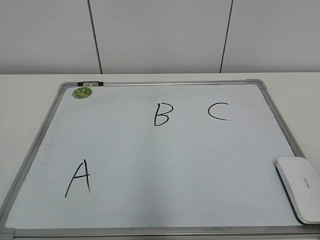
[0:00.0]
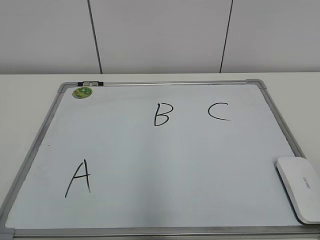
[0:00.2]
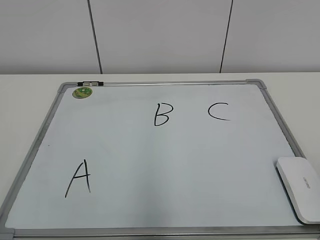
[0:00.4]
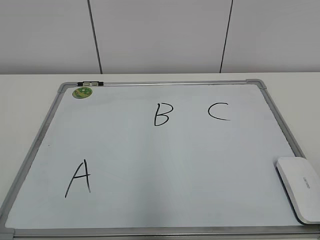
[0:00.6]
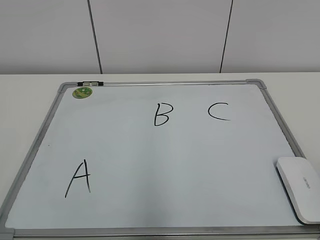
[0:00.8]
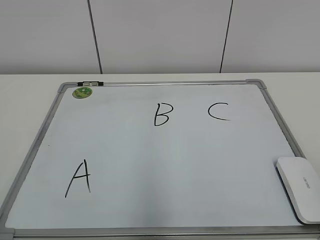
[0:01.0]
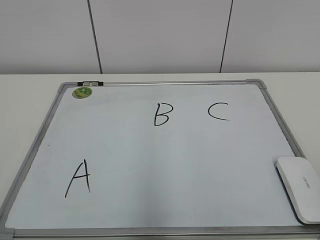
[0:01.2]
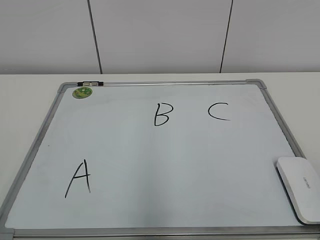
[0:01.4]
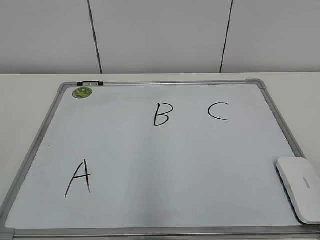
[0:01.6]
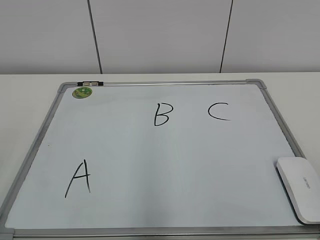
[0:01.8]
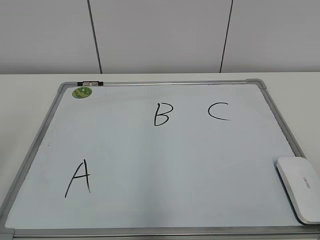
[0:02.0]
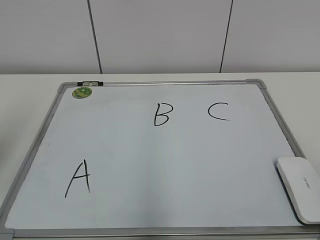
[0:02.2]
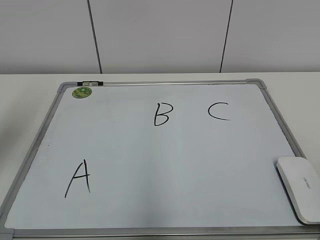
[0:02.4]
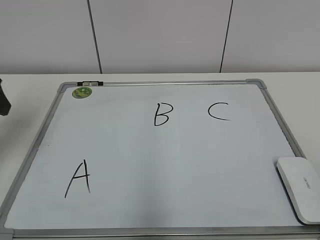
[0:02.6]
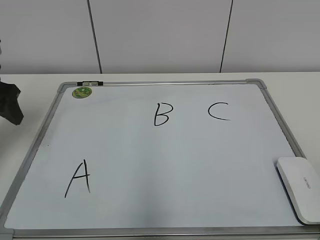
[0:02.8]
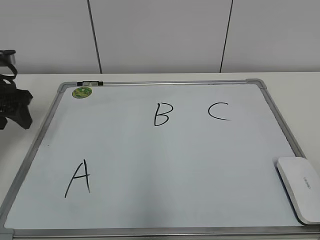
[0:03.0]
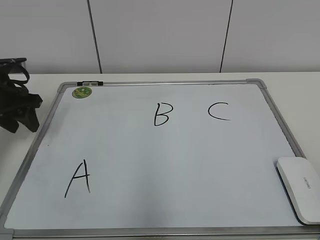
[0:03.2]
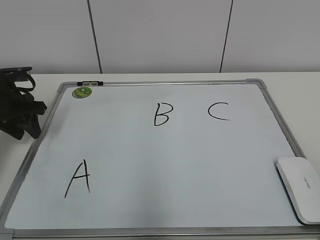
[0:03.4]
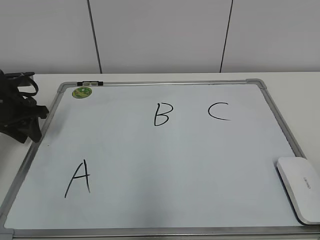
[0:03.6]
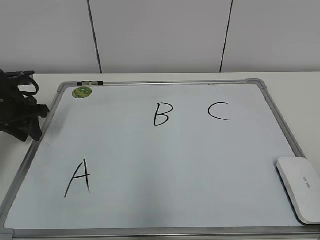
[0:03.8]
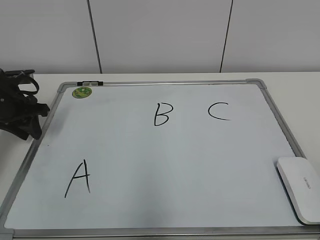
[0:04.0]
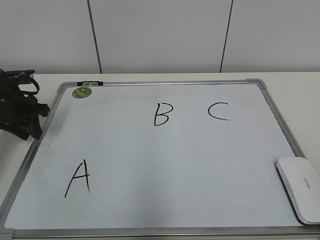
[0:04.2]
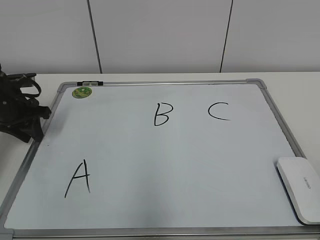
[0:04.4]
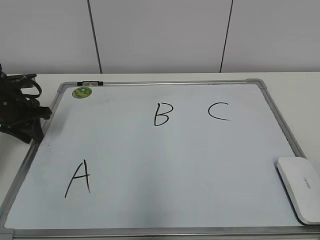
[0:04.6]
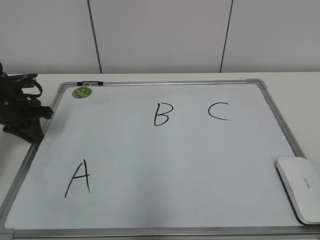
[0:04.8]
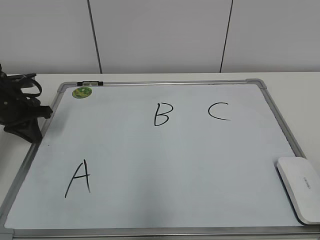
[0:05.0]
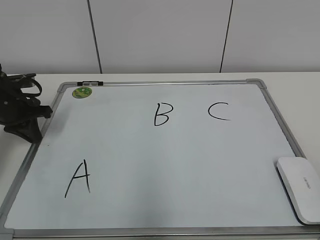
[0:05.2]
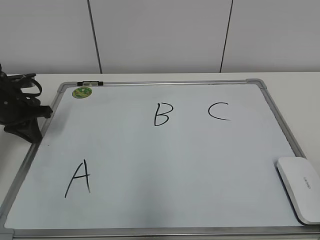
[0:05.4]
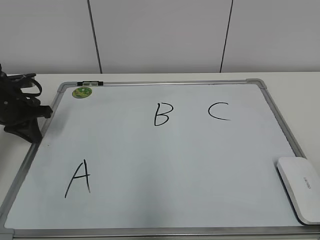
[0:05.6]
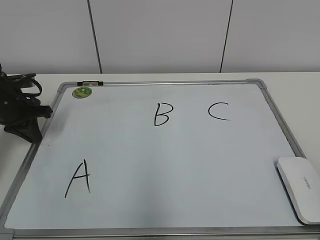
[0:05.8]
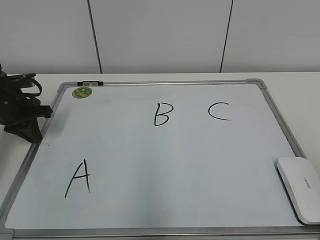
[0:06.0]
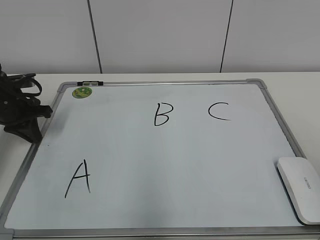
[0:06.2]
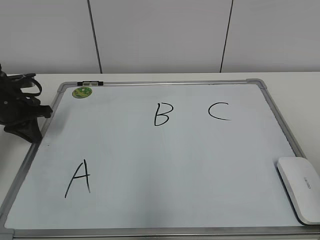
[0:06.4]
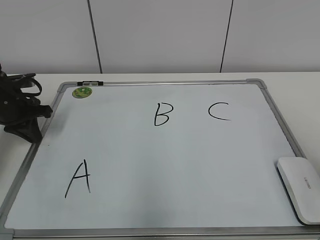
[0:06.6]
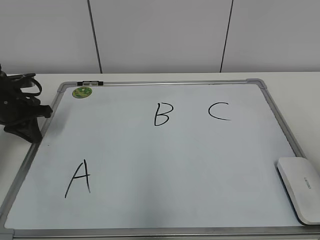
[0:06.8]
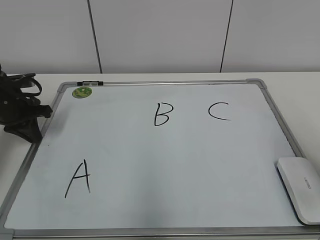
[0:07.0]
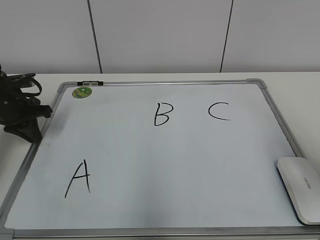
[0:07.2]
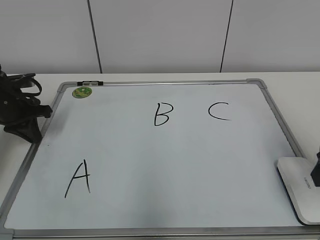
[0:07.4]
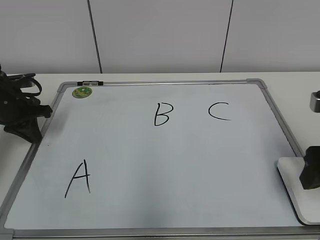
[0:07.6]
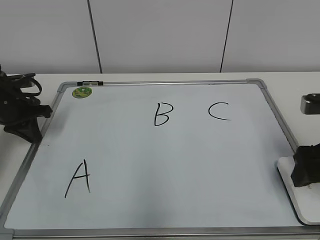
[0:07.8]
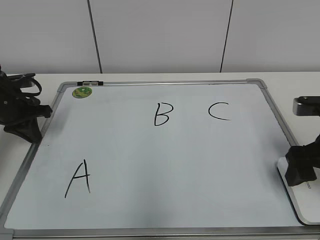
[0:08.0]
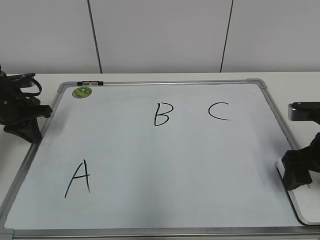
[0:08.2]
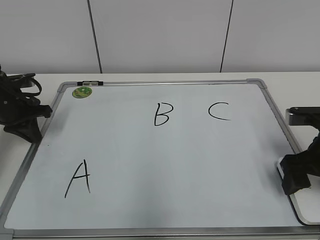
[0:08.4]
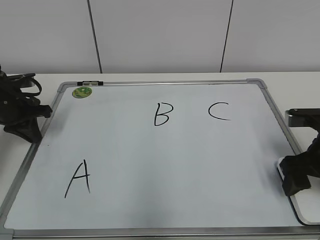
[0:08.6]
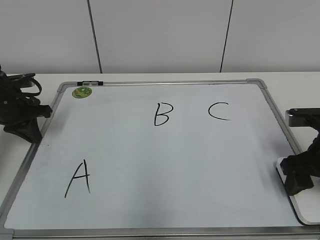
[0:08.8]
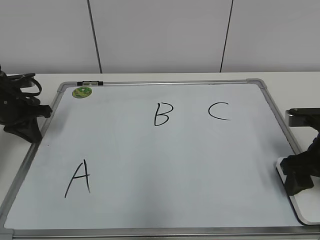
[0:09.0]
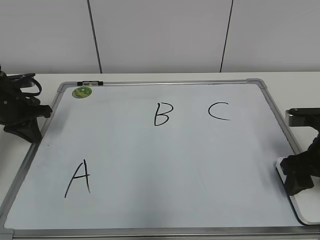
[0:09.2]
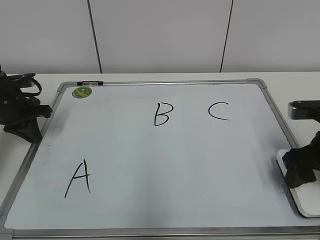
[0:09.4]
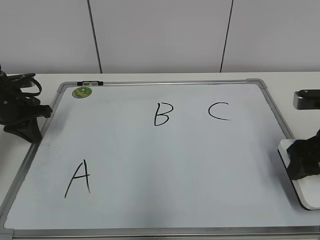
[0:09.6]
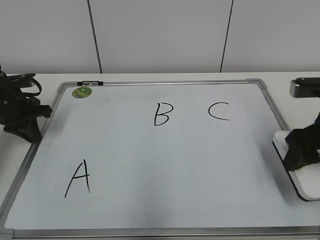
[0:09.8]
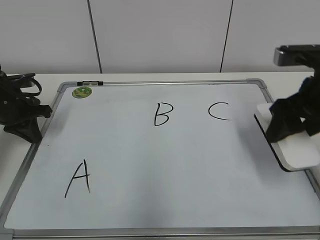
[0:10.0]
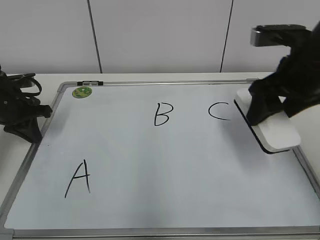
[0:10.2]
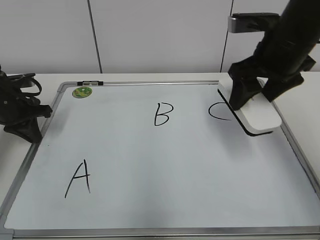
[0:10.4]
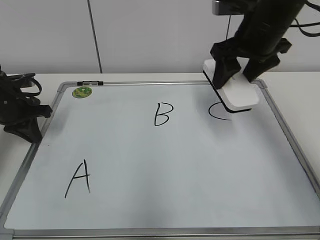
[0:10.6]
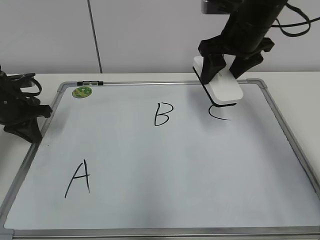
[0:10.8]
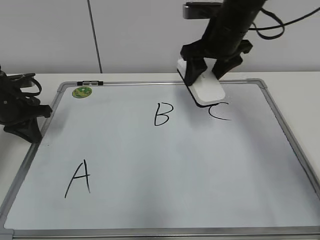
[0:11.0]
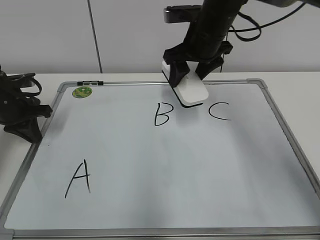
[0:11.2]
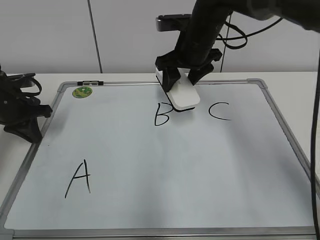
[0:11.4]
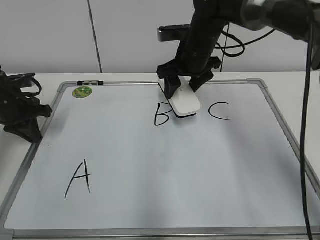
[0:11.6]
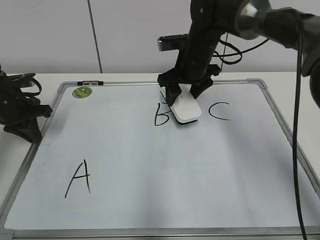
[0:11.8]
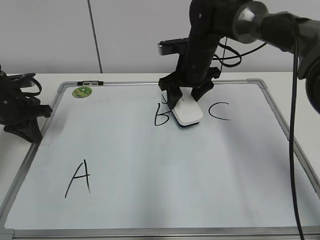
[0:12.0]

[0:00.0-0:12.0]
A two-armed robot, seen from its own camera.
Task of the whole recording: pick up the eraser on the blackboard and erase the letter "B".
Step, 0:00.0 to 0:04.8: Hold the drawing board steady with your left hand.
Step, 0:05.0 to 0:09.0: Grab the eraser with your right hand.
0:01.6 to 0:03.0: The left gripper is displaced forward by approximately 35 cm.
0:03.0 to 0:04.4: The left gripper moves downward, roughly 5 cm, and closes.
0:06.0 to 0:07.6: The right gripper travels forward and downward by about 25 cm, and opens up.
0:07.6 to 0:09.0: The right gripper shifts approximately 5 cm downward, and closes up.
0:09.0 to 0:10.4: The right gripper moves upward, to the left and forward, some 15 cm.
0:10.4 to 0:12.0: The right gripper shifts approximately 20 cm forward, to the left and downward.

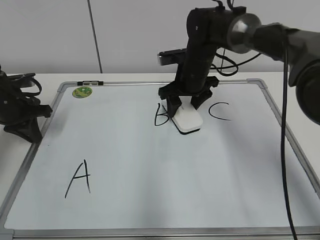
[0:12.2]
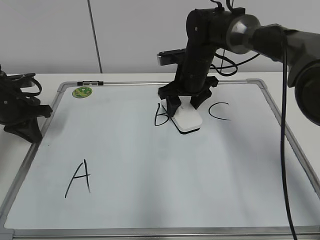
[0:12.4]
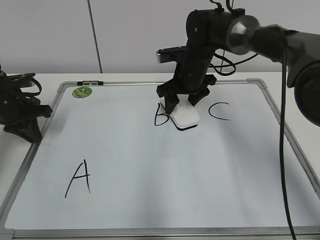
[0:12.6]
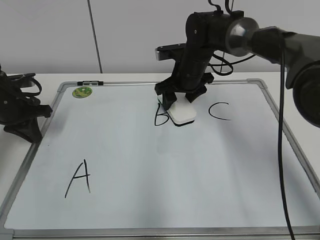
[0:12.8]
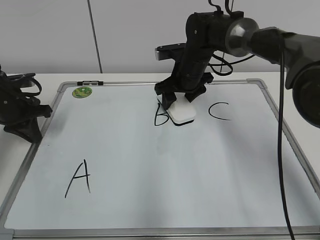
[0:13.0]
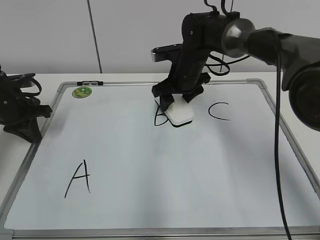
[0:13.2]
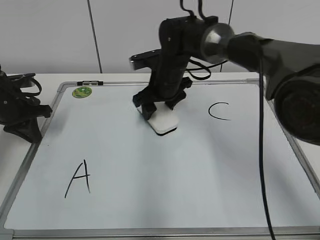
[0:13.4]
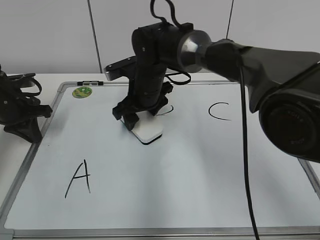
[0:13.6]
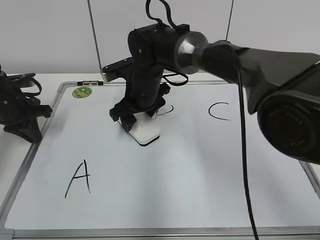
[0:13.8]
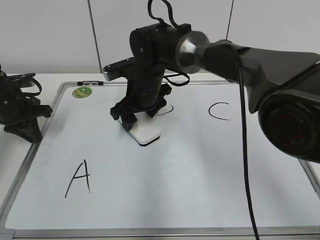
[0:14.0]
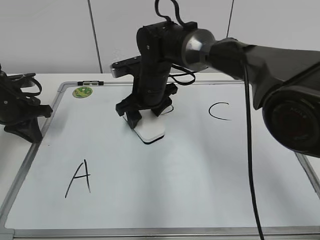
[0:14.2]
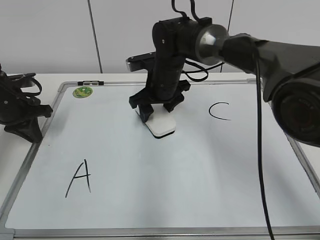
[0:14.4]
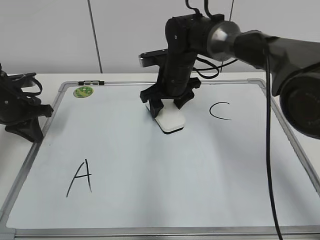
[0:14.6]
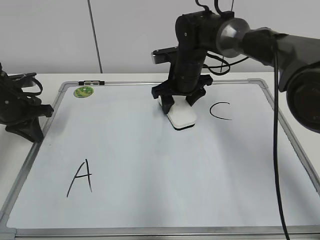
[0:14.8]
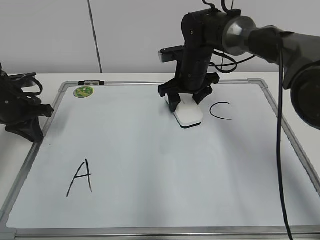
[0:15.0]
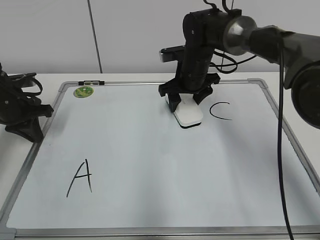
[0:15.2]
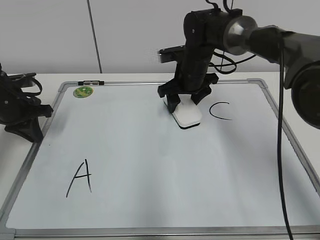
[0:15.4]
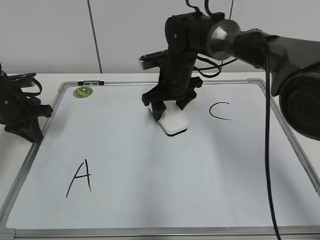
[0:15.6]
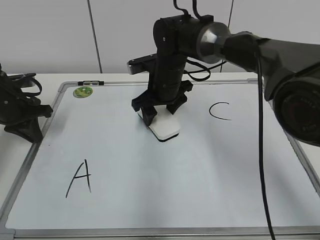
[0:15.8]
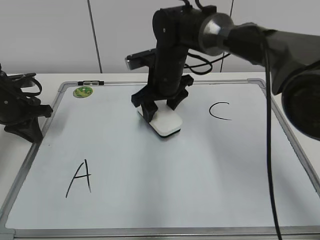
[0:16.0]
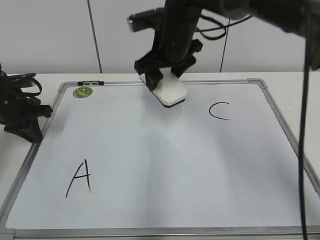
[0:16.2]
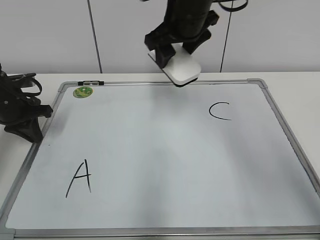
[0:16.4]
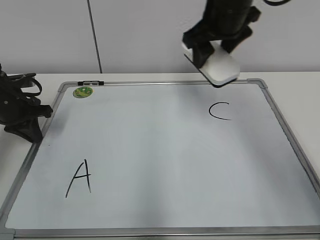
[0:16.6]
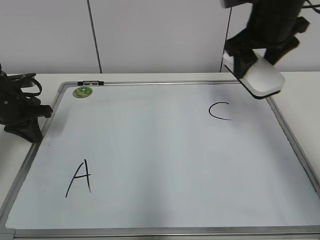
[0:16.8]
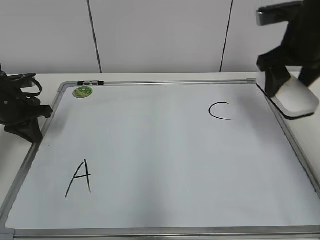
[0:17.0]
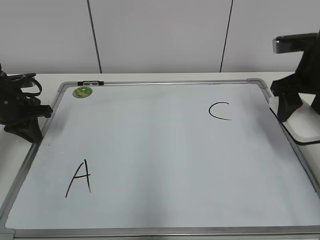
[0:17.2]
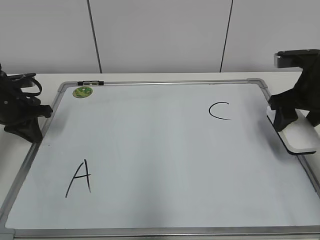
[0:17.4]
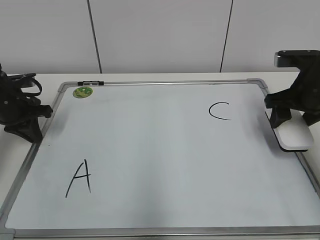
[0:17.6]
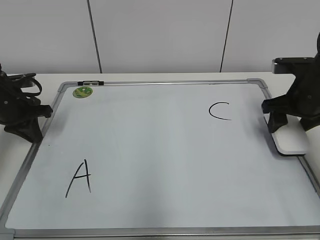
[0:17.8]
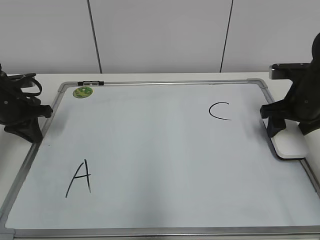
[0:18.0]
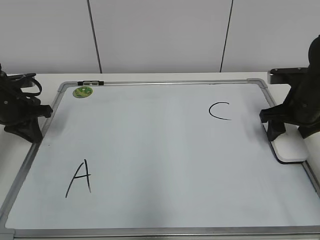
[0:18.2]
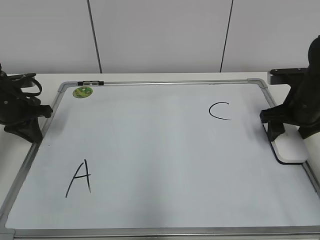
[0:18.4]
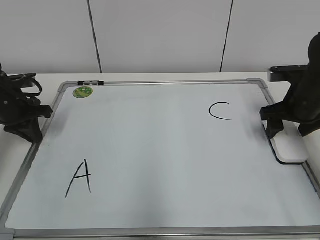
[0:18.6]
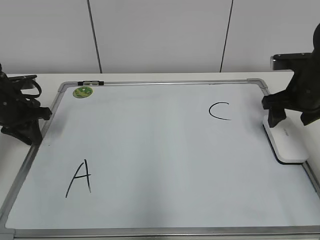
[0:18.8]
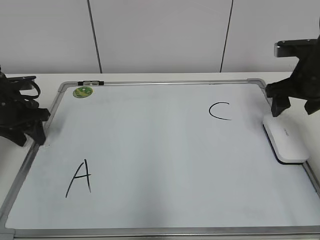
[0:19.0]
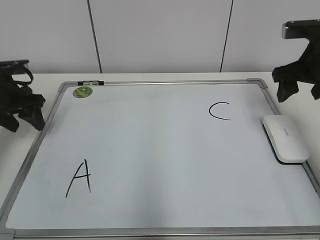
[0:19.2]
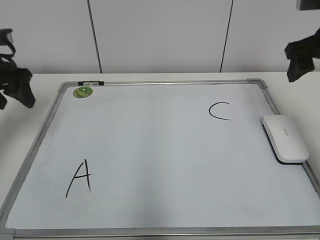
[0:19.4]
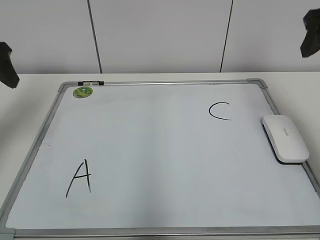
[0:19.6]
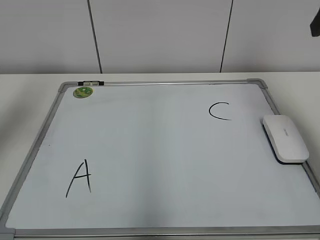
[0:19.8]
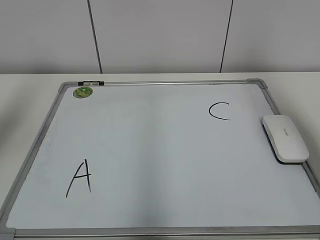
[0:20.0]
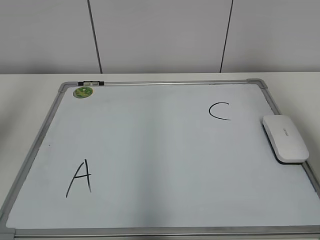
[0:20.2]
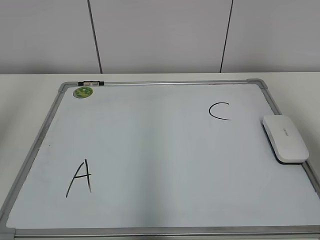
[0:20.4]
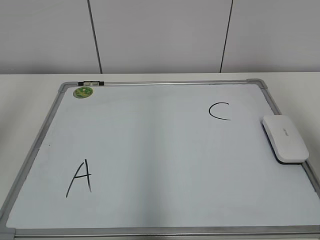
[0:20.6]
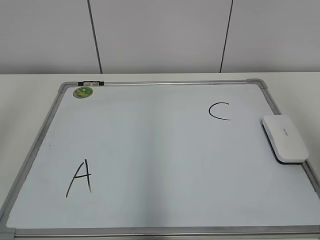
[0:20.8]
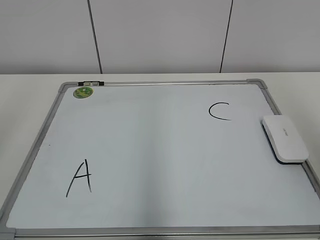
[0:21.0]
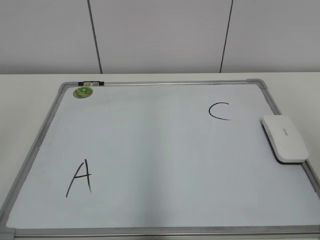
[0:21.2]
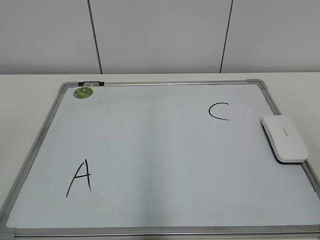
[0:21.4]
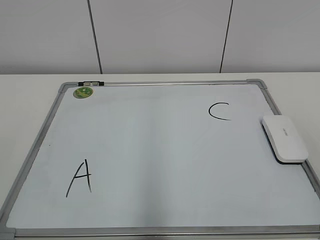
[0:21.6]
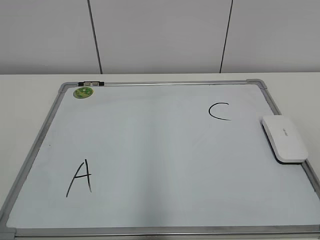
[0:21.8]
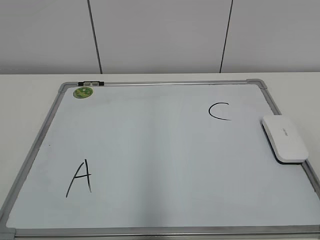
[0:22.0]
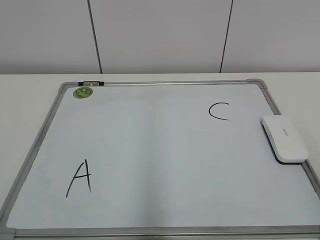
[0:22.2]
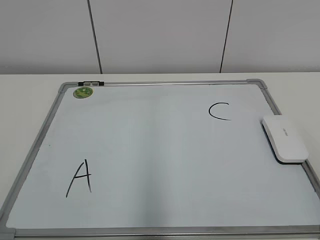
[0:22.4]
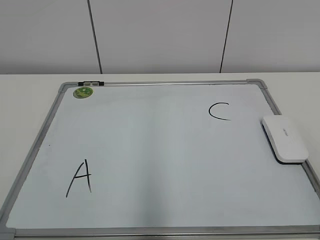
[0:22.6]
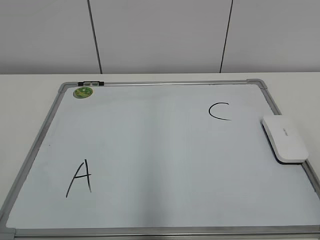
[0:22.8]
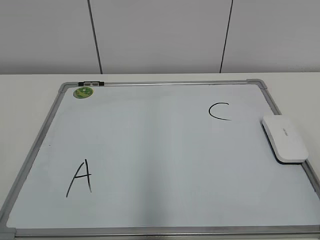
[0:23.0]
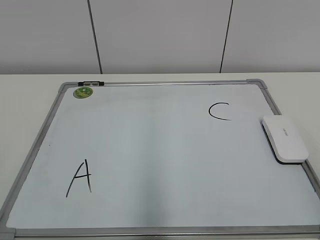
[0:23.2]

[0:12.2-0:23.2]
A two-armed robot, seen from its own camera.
Task of the whole recording: pick up the eraser on the blackboard and erase the letter "B".
Step, 0:12.2 to 0:15.6: Erase the letter B with your right hand.
Step, 0:15.8 to 0:18.4: Put down the eraser with your right hand.
0:12.2 to 0:13.8: The right gripper moves to the left, some 10 cm.
0:13.8 to 0:15.4: The right gripper goes about 10 cm to the right and forward.
0:15.4 to 0:17.0: The right gripper travels to the right, upward and backward by some 20 cm.
0:17.0 to 0:18.4: The right gripper goes some 15 cm downward.
0:18.4 to 0:20.0: The two grippers go roughly 25 cm upward and backward. The left gripper opens up.
0:20.0 to 0:21.6: Both grippers move backward, some 25 cm.
